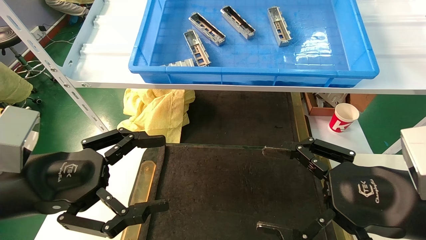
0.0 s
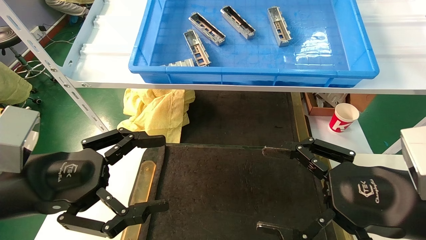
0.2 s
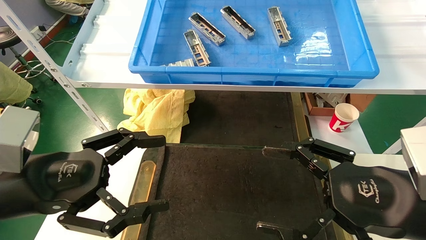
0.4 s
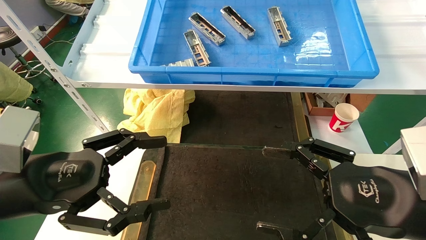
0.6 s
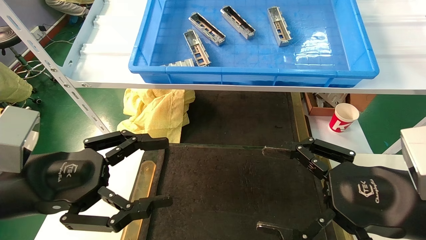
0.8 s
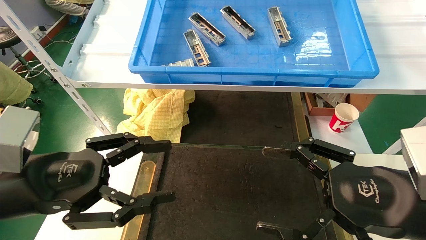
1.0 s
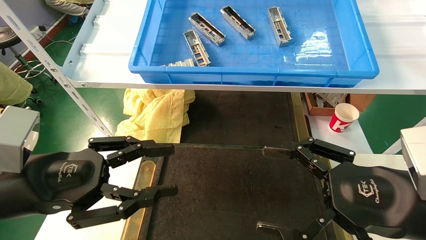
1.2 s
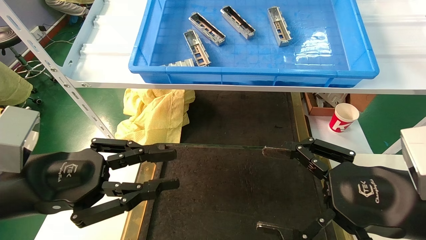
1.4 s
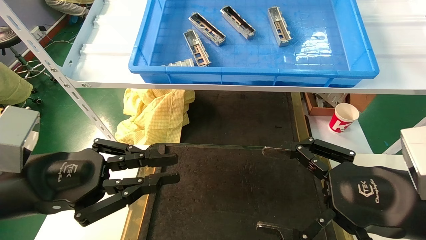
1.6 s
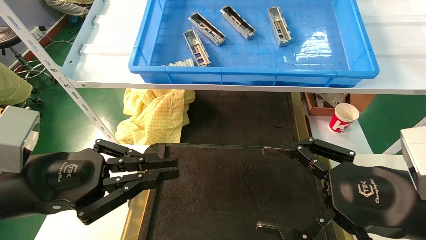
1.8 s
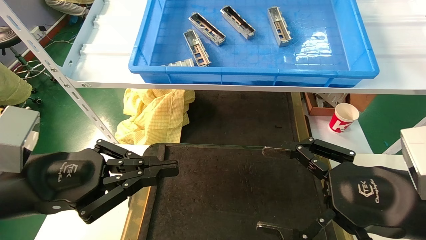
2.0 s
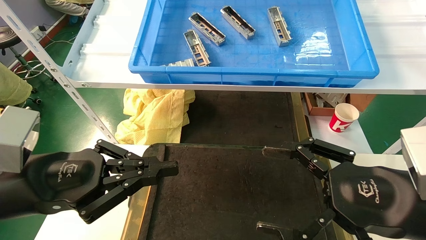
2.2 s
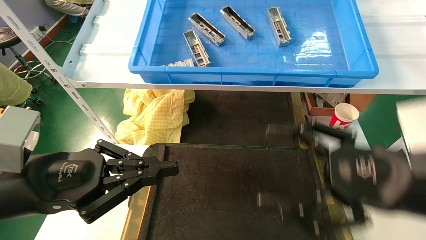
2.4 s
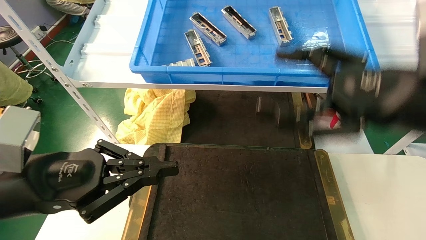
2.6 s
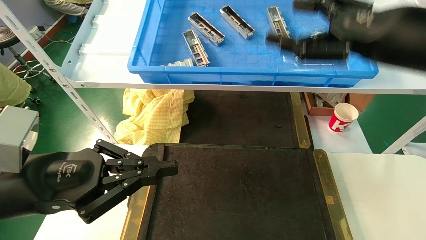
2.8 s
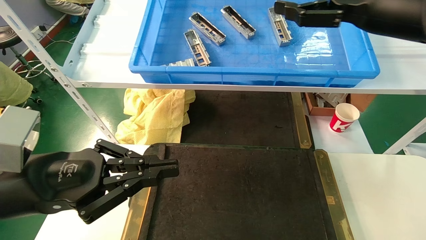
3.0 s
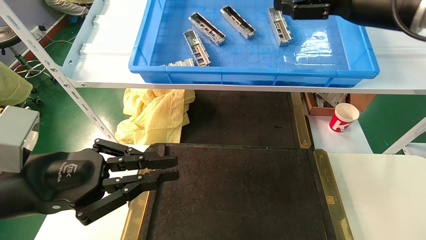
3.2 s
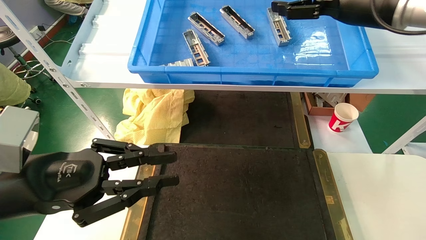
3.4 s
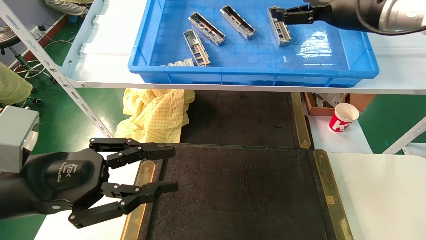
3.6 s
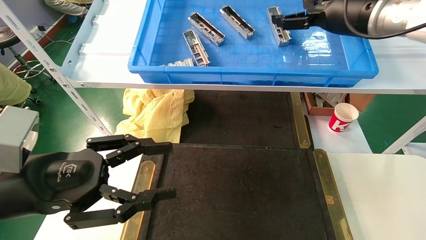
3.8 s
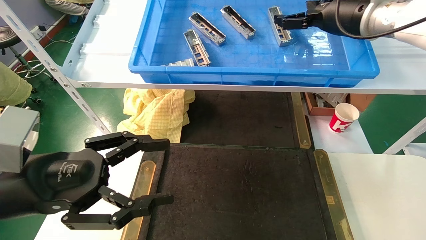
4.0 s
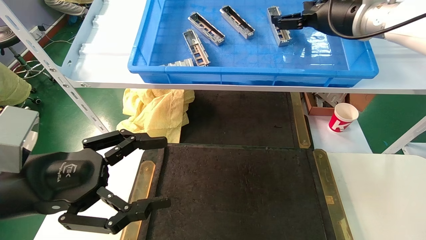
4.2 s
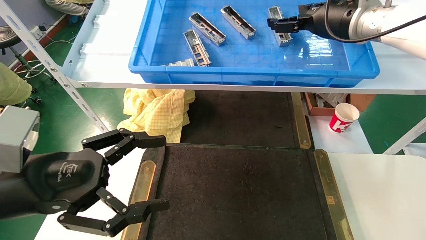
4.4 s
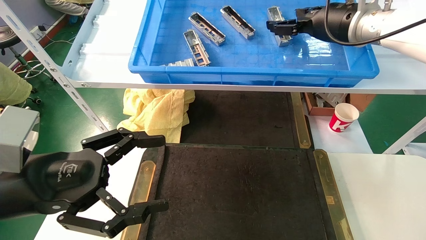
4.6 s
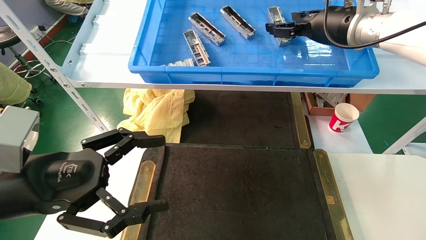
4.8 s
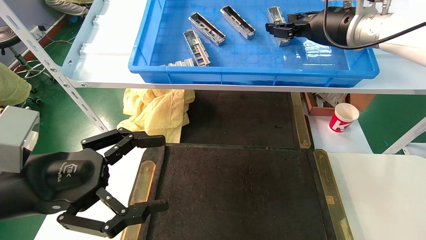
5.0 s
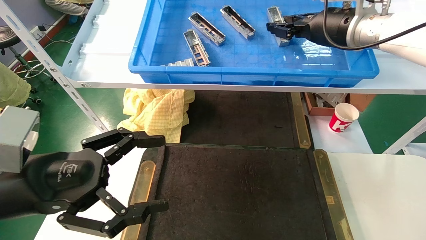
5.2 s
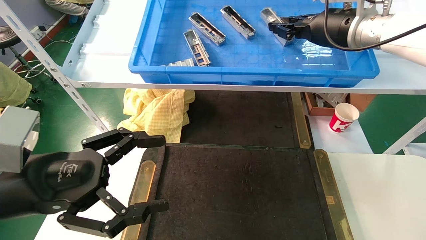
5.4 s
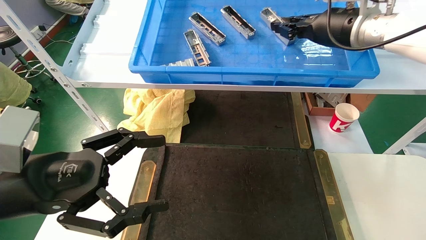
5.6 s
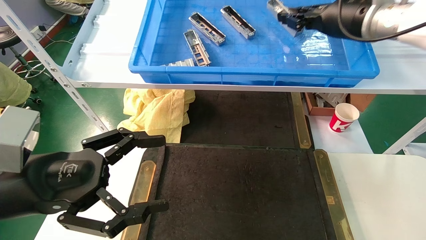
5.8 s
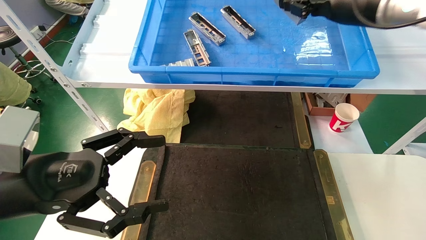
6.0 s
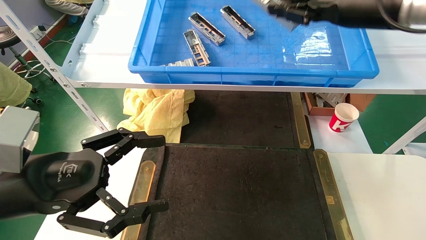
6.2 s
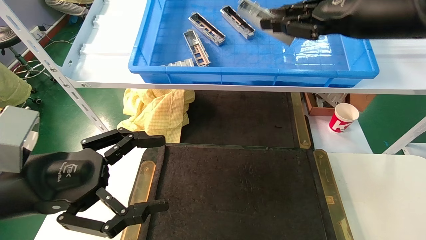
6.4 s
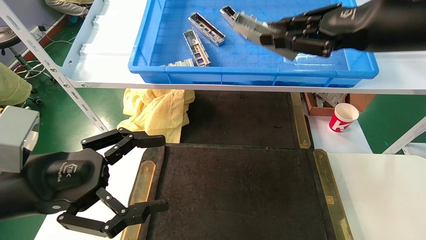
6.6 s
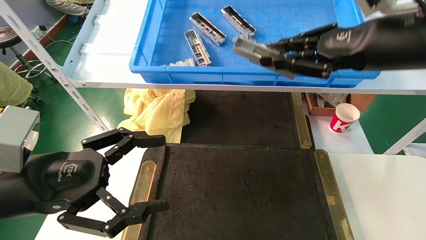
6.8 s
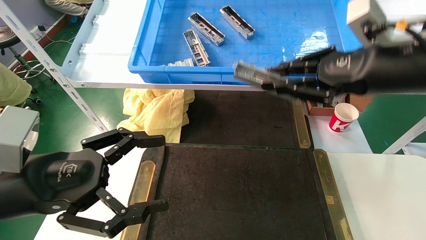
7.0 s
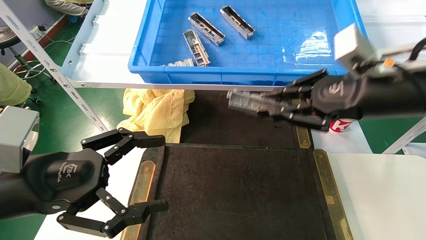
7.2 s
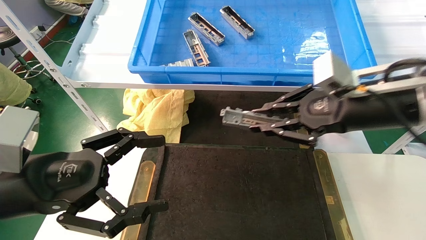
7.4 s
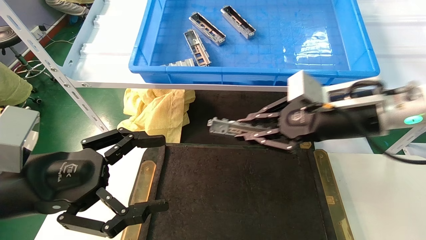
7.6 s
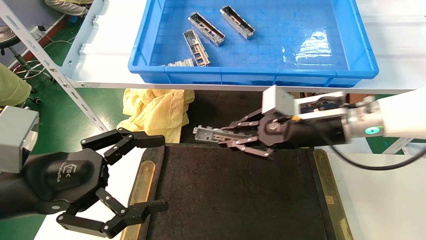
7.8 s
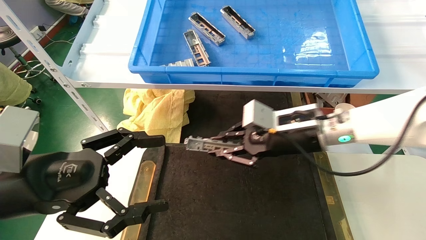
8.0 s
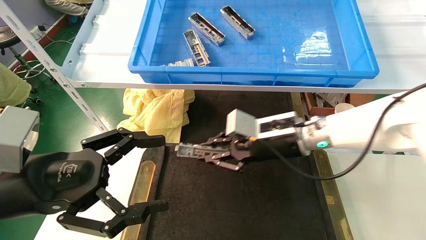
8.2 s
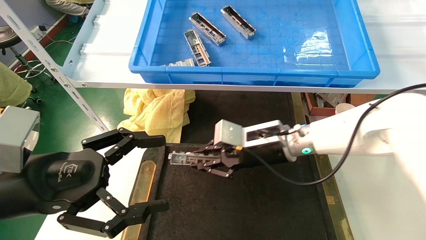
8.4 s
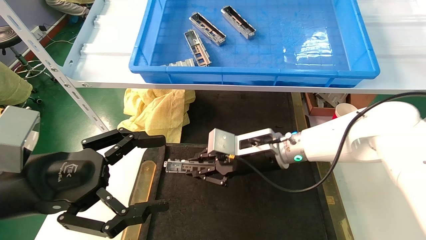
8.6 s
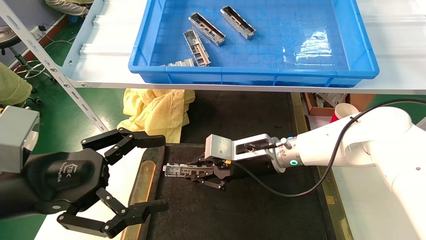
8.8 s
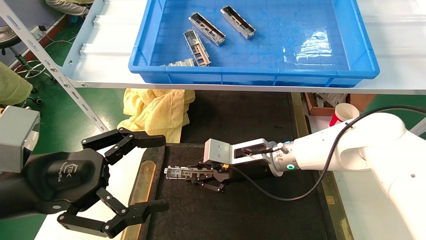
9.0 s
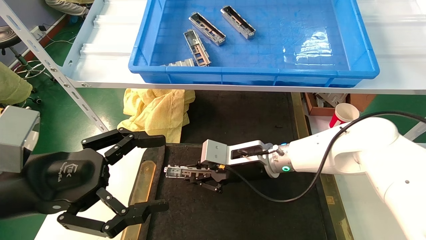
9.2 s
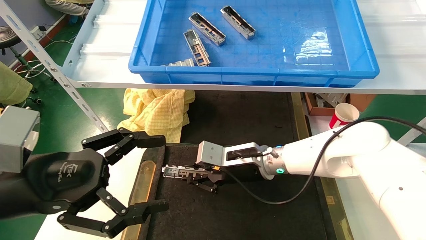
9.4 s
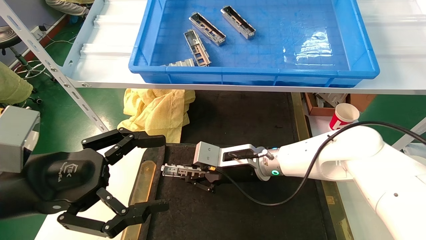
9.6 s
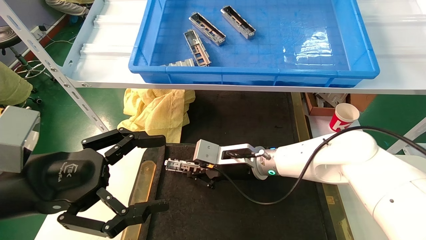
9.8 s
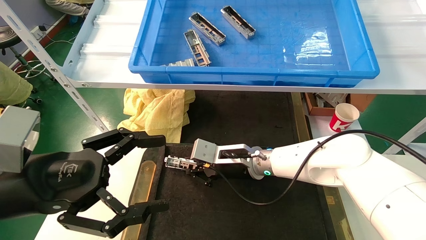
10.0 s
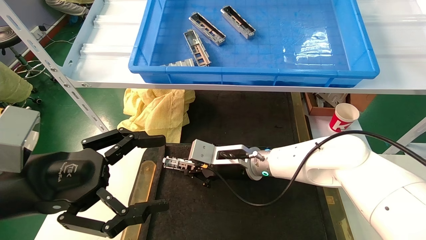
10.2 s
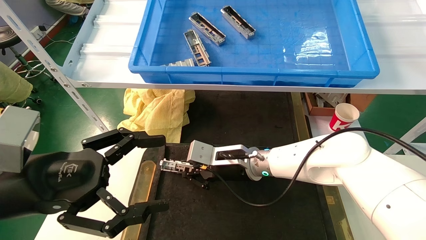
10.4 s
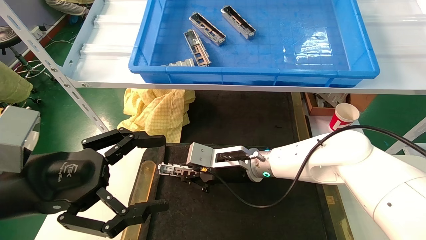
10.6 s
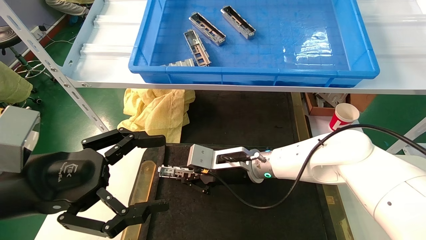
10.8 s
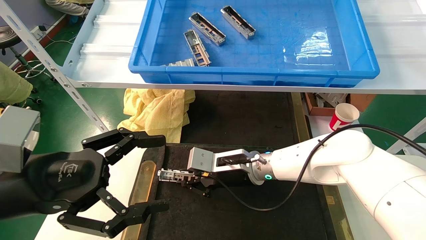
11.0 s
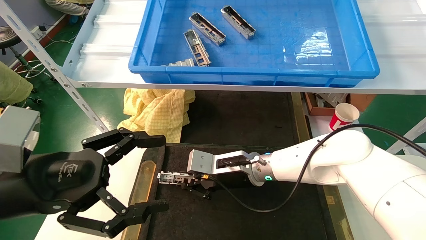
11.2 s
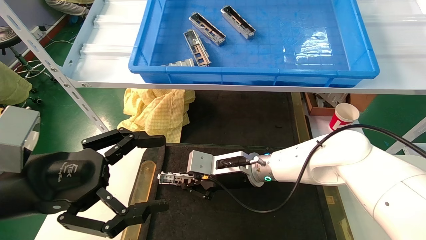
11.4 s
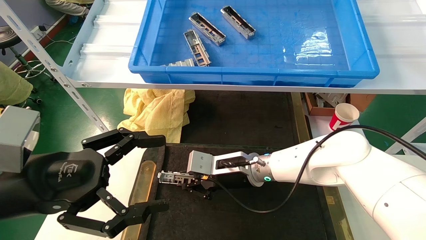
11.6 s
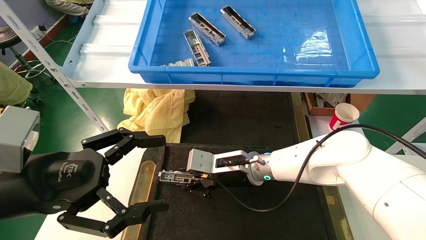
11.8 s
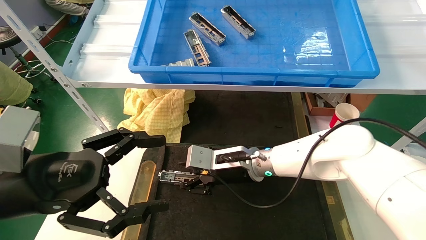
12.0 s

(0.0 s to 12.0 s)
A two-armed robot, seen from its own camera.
Task of the whole recording: grasp the part and place them on the black container.
Step, 2.6 s - 5.4 s: Pick up and lift the front USB bracket from the feeding area.
Step, 5.6 s - 11.8 s: Place the front USB bracket into the box.
0.0 s - 1.6 s: The left gripper closes.
1.6 s - 3.0 s: The right gripper shifts roughly 25 cm upward and forward.
3.0 s - 4.4 s: The right gripper is displaced forward by roughly 10 cm, while the left gripper opens up.
4.4 s - 6.0 s: The right gripper closes its fingers.
6.0 s - 7.6 s: The right gripper is displaced downward by about 15 cm.
7.6 s - 9.0 s: The right gripper moves to the left, downward and forward, roughly 20 cm.
9.0 s - 12.0 s: The grippers stay close to where they were, moving slightly.

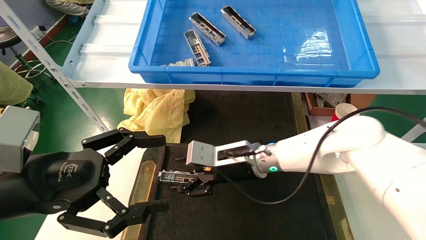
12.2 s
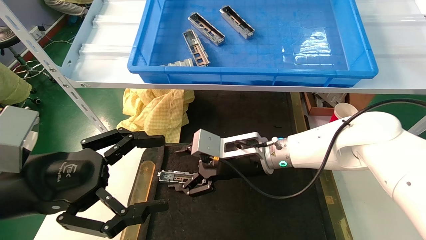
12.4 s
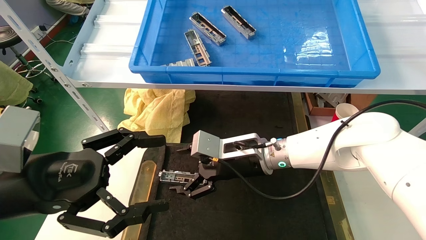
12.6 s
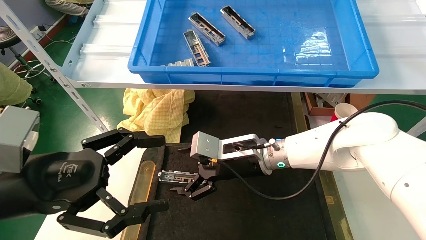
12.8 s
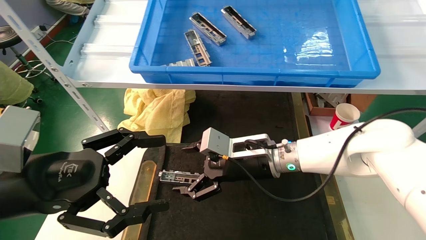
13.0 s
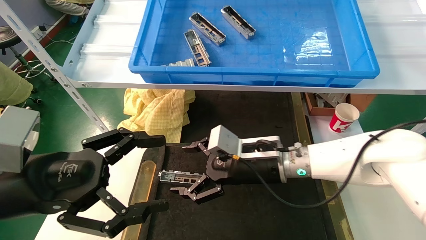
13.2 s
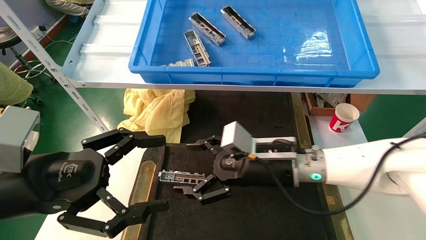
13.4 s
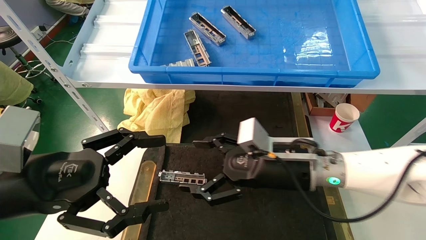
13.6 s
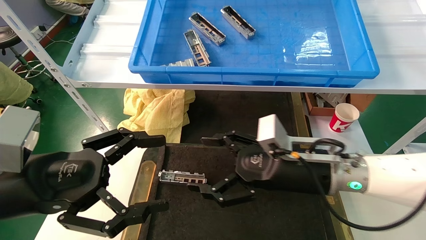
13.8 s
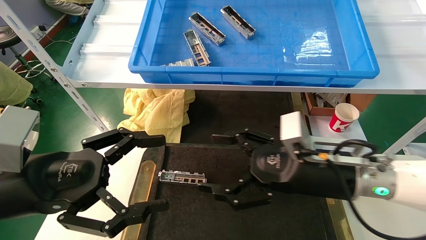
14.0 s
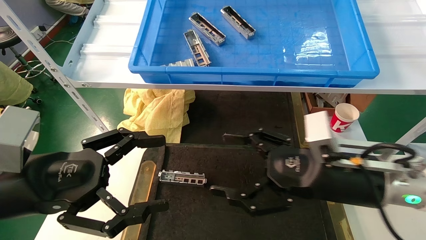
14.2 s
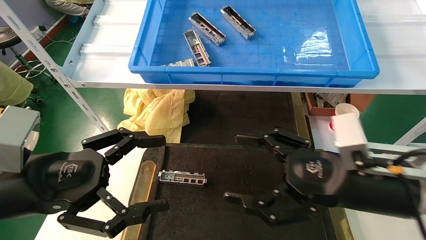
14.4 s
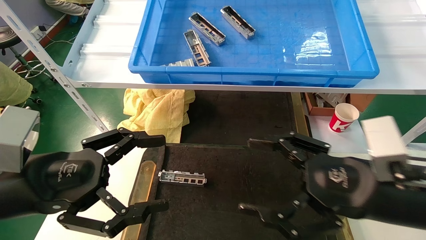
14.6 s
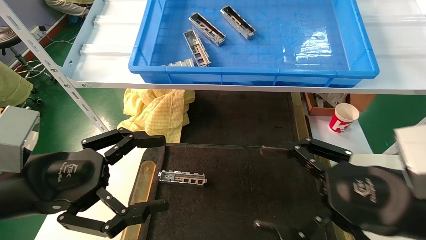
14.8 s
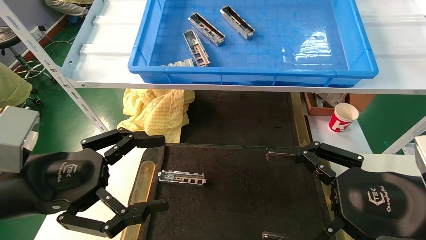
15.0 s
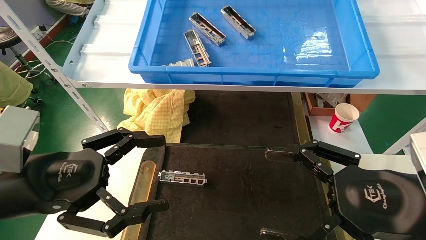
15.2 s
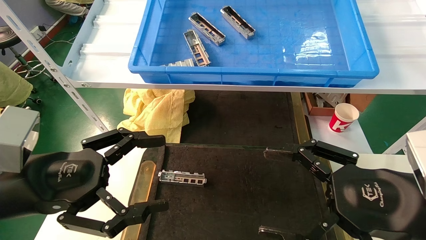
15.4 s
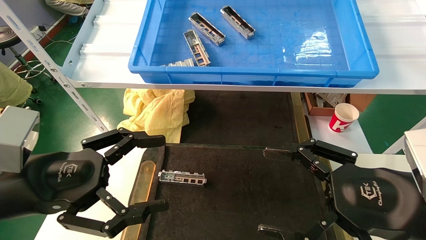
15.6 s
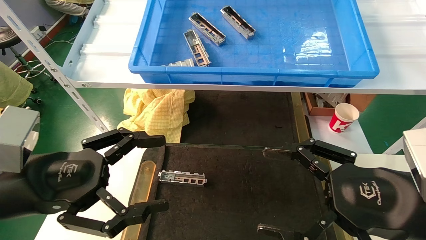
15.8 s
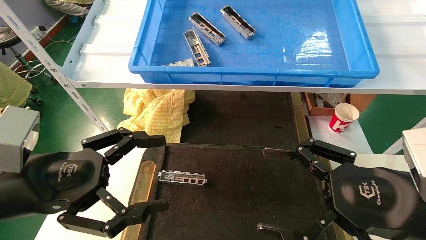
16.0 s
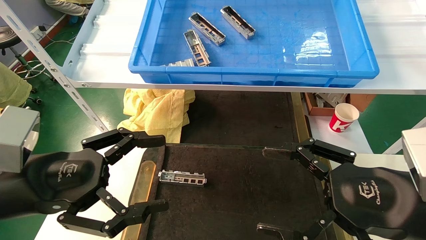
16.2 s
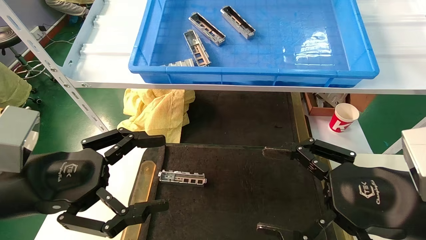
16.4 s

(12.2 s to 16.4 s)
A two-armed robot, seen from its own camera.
Task of the whole recording: grasp the part and place them on the black container.
12.2 s - 13.6 s: The right gripper is displaced to the right and backward by roughly 10 cm, and opens up.
13.6 s - 15.0 s: The right gripper goes some 20 cm backward and to the right.
15.0 s - 16.4 s: Both grippers stay about where they are.
